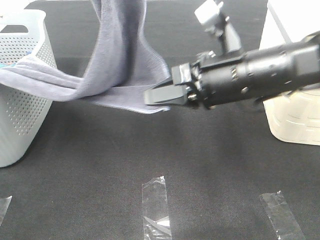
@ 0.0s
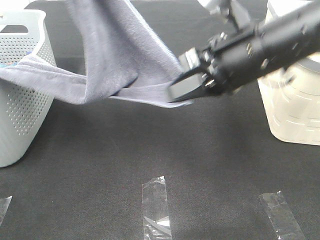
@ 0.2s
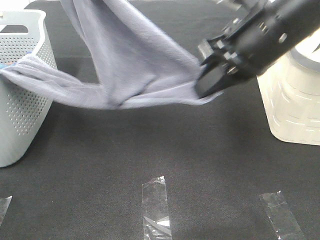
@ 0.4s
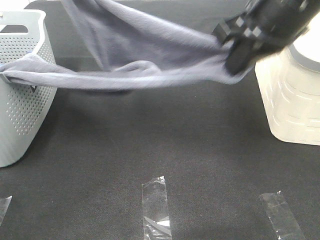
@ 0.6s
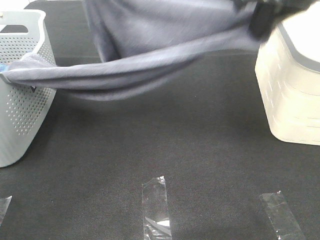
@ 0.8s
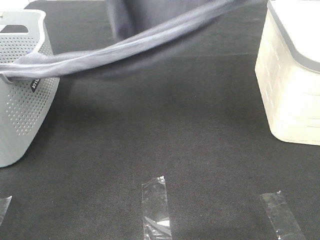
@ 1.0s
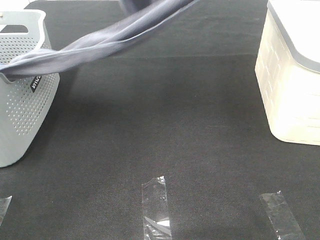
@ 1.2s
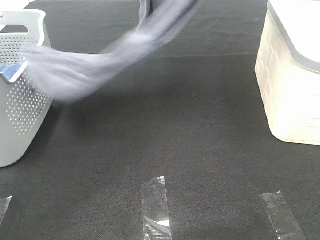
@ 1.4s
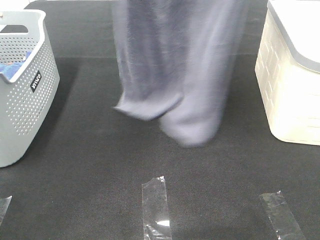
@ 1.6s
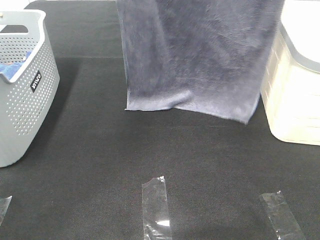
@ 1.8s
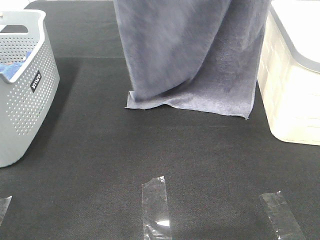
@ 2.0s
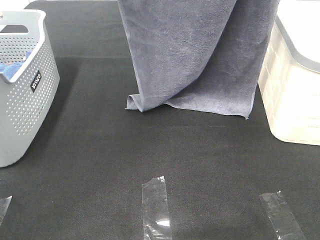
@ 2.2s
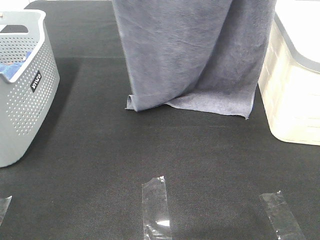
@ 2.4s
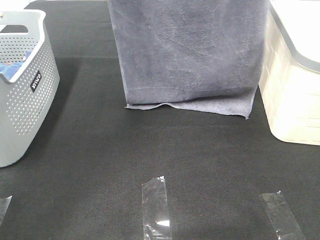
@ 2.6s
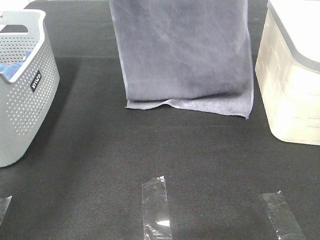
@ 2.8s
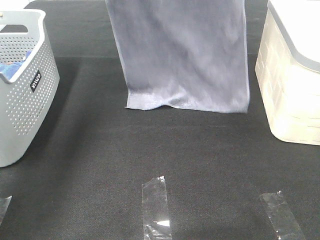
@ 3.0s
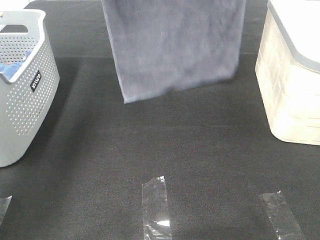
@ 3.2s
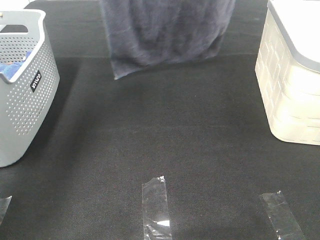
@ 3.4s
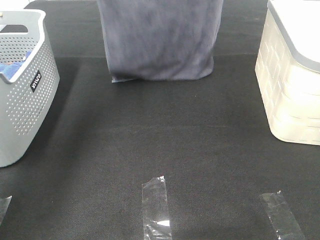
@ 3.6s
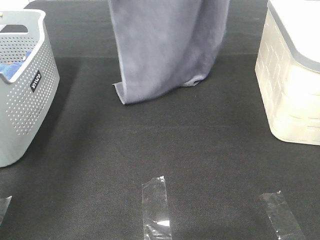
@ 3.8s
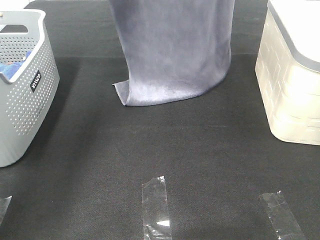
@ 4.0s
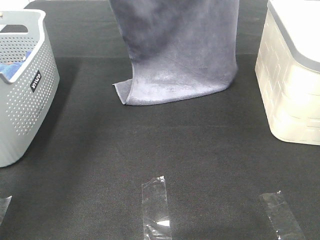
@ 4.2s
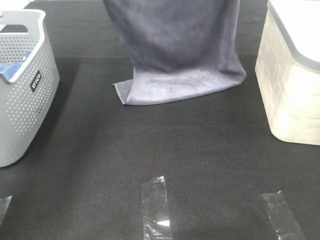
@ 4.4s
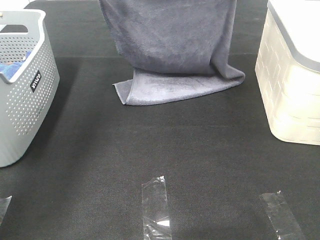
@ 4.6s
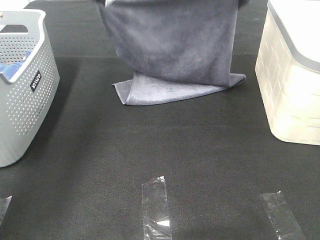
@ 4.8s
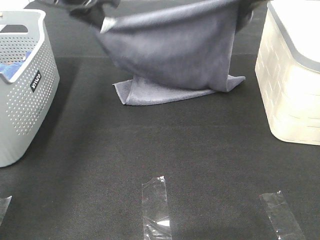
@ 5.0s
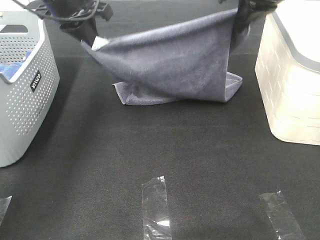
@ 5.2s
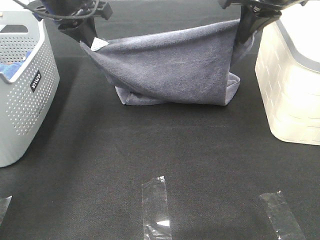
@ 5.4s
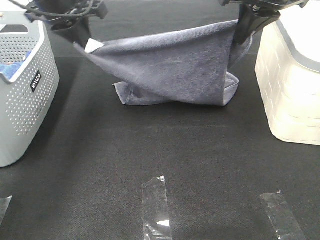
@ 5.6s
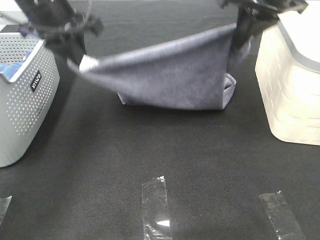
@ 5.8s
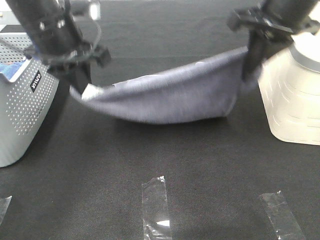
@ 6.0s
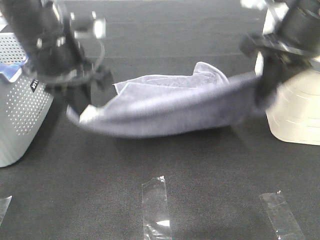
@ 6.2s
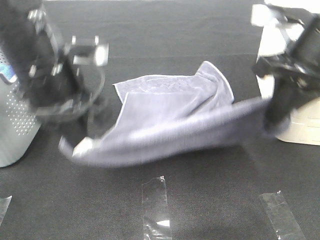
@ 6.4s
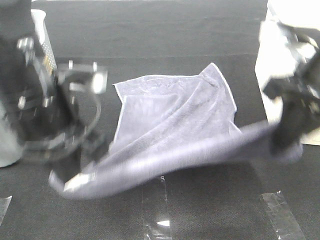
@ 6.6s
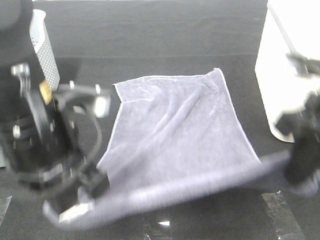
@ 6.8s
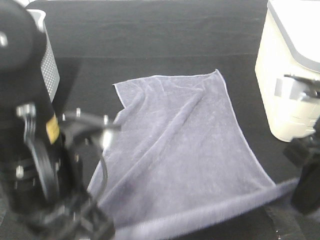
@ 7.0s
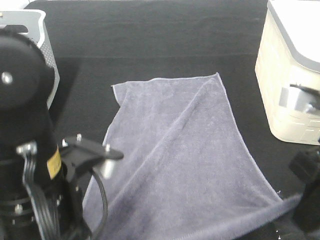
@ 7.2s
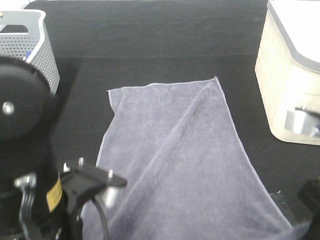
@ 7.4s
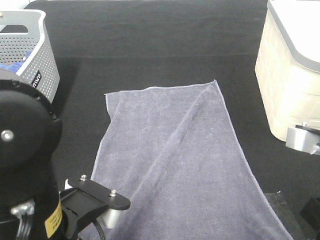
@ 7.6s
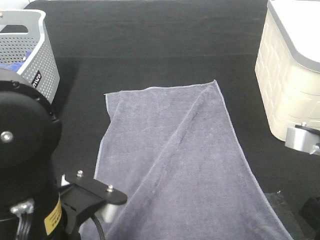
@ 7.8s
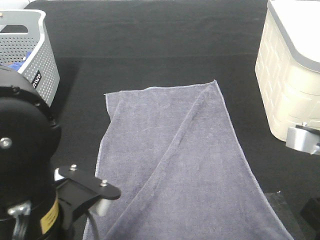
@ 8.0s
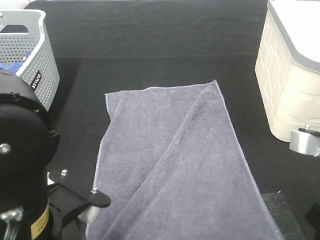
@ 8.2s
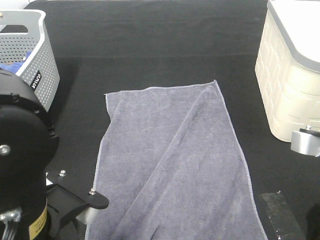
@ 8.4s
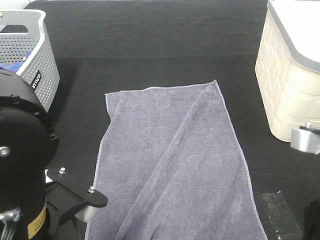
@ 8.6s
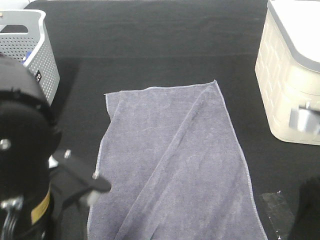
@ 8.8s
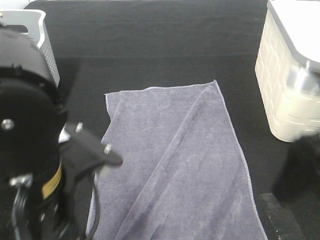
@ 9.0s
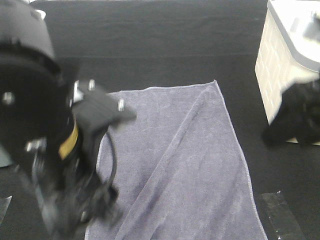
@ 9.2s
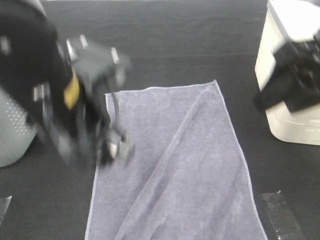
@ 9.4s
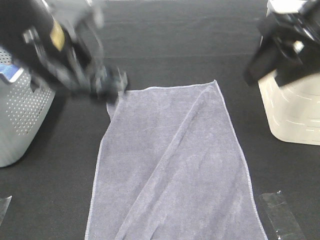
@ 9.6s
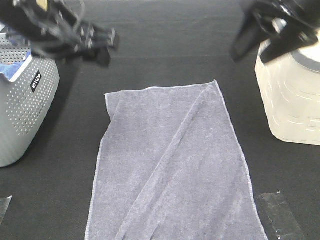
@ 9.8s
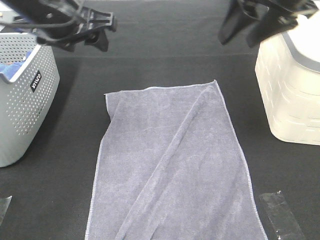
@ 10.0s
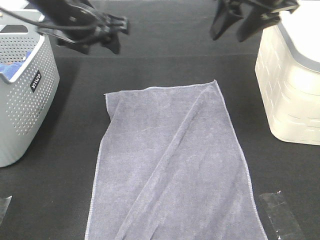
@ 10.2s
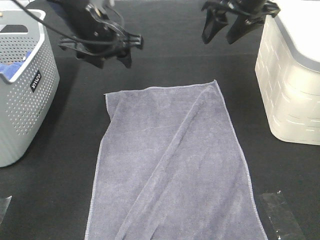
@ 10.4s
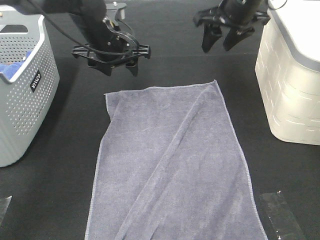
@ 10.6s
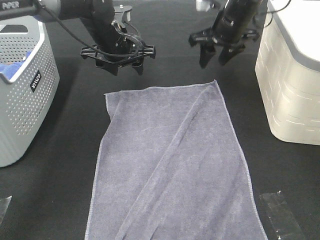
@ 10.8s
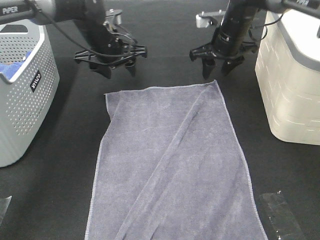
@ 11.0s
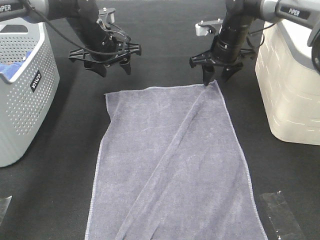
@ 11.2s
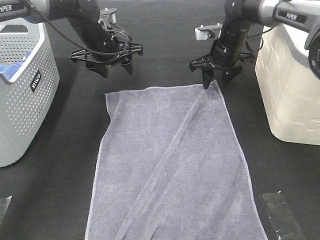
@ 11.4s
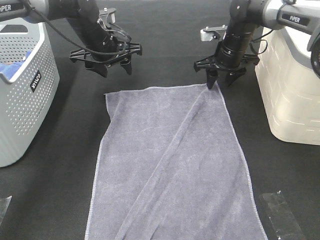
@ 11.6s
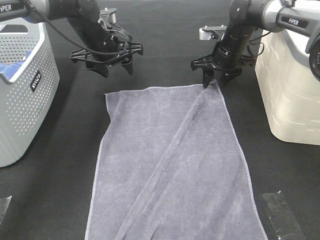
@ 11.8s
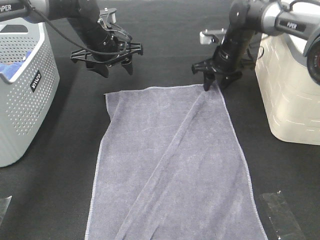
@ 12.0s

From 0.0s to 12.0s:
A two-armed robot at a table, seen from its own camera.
Task of the whole recording: Remove the towel and place it.
Step, from 0.0s to 3.6s: Left hand: spread the grey towel flat on the table.
Step, from 0.0s to 3.6s: Right hand: spread the grey towel flat on the table.
From 0.0s to 1.6s: The right gripper is displaced upward by some 30 cm. Meanwhile the left gripper travels forward by about 10 cm, and moves some 5 cm downward and comes back.
From 1.6s to 3.0s: The right gripper travels forward and downward by roughly 10 cm. Meanwhile the left gripper travels forward, downward and to the left by some 10 cm.
From 3.0s to 4.4s: Both grippers travel together downward, approximately 10 cm.
From 4.4s to 6.0s: The right gripper shifts approximately 10 cm backward and downward; the left gripper heads backward, covering approximately 15 cm.
From 6.0s to 7.6s: The right gripper moves backward and downward, some 20 cm. The left gripper shifts roughly 25 cm backward.
From 7.6s to 9.0s: The right gripper ends up about 5 cm from where it was, and opens. Meanwhile the left gripper opens.
From 9.0s to 10.4s: The two grippers go approximately 30 cm forward.
From 10.4s to 12.0s: The right gripper shifts approximately 20 cm downward and forward. Meanwhile the left gripper is displaced forward by approximately 5 cm.

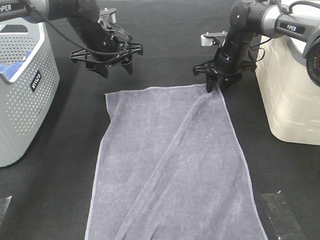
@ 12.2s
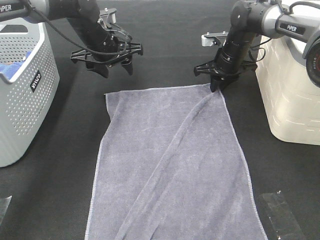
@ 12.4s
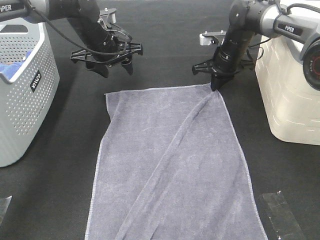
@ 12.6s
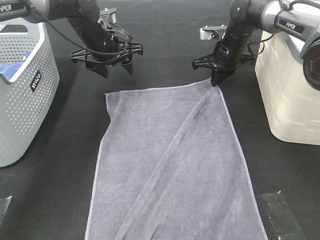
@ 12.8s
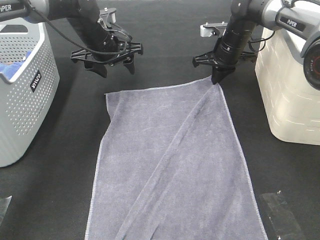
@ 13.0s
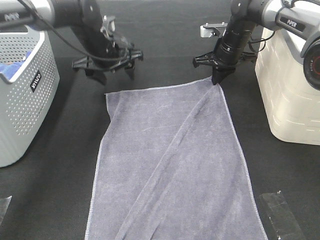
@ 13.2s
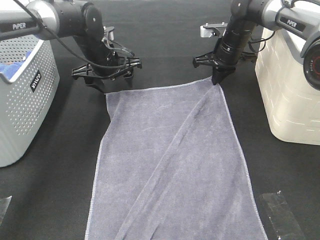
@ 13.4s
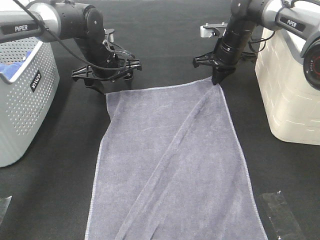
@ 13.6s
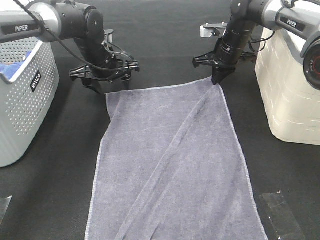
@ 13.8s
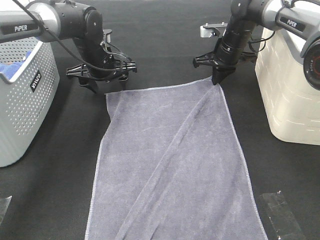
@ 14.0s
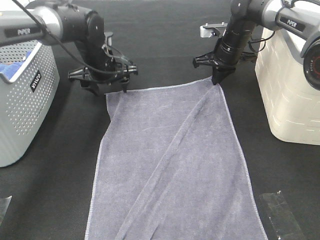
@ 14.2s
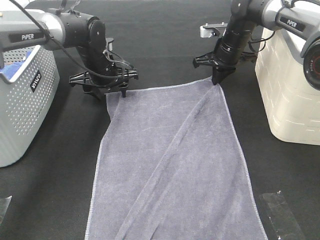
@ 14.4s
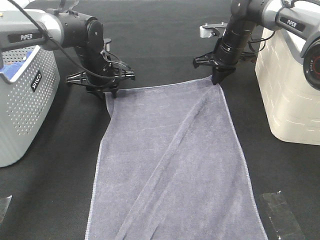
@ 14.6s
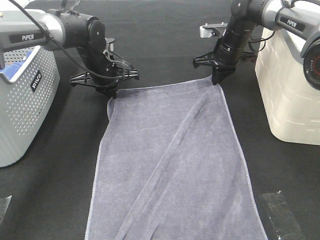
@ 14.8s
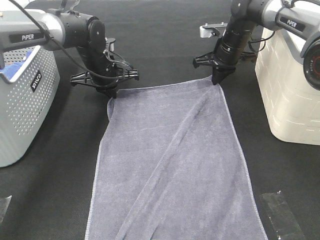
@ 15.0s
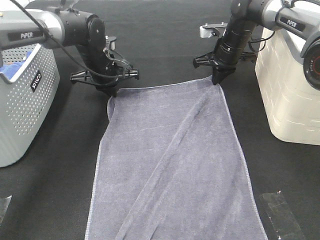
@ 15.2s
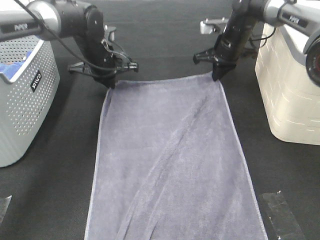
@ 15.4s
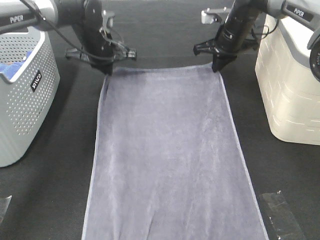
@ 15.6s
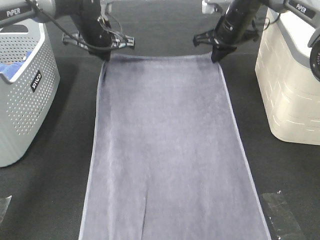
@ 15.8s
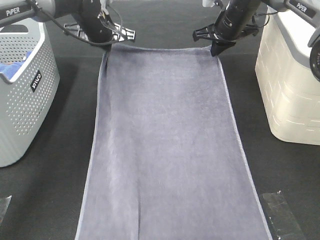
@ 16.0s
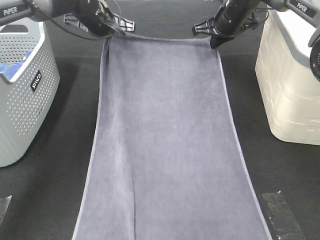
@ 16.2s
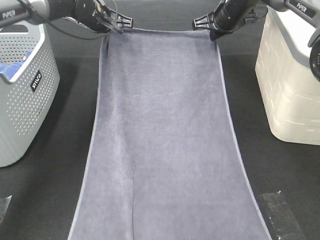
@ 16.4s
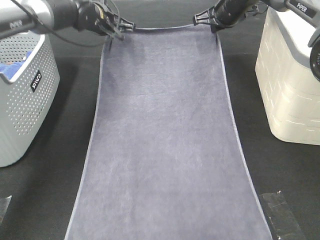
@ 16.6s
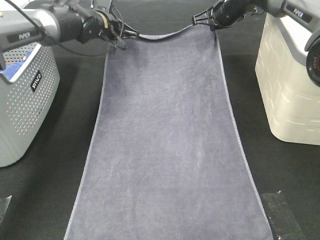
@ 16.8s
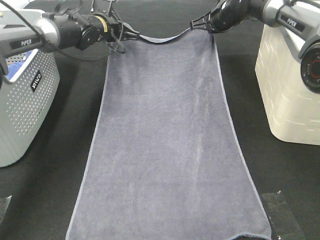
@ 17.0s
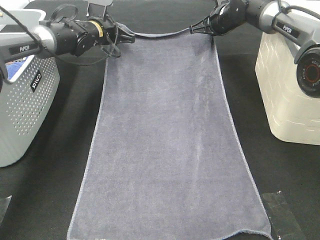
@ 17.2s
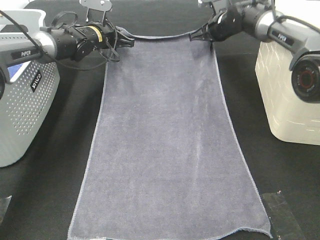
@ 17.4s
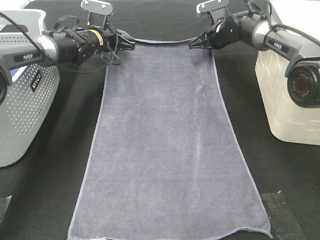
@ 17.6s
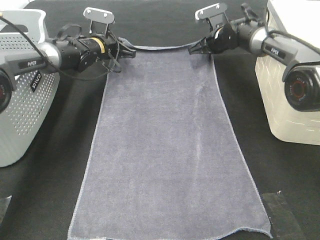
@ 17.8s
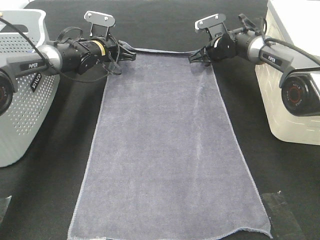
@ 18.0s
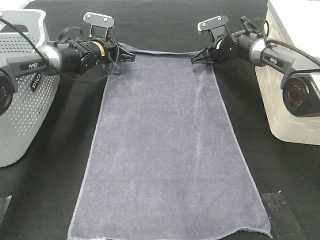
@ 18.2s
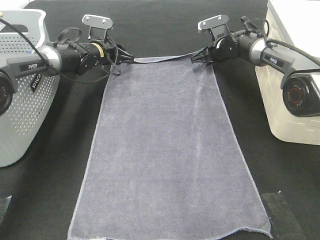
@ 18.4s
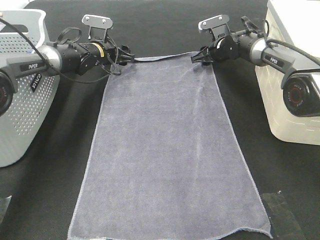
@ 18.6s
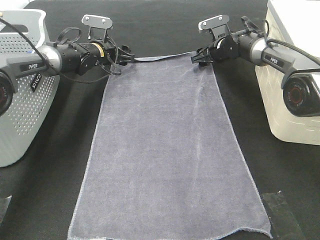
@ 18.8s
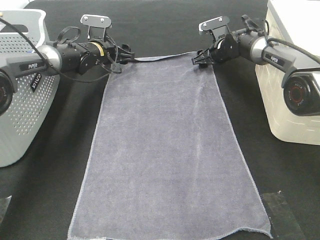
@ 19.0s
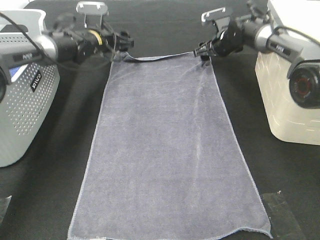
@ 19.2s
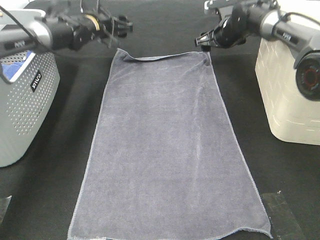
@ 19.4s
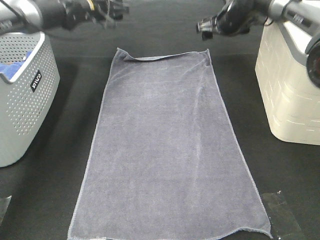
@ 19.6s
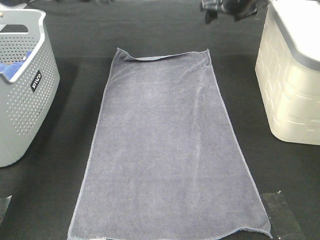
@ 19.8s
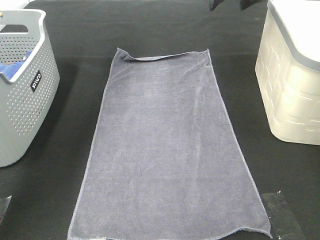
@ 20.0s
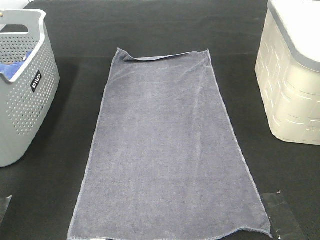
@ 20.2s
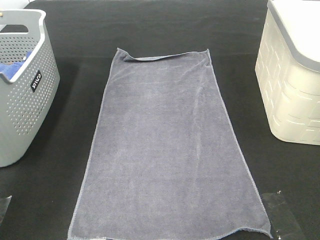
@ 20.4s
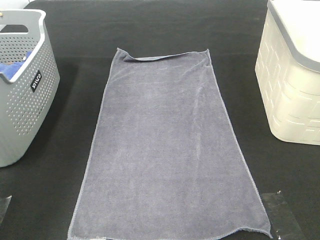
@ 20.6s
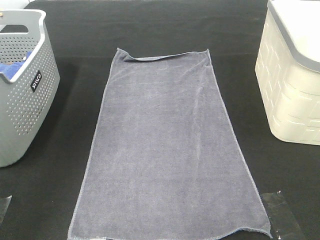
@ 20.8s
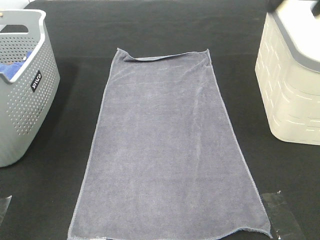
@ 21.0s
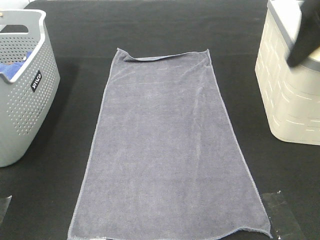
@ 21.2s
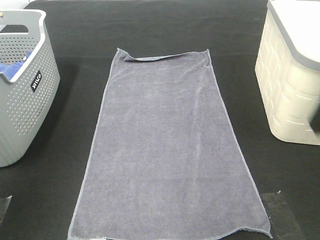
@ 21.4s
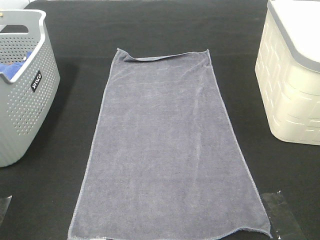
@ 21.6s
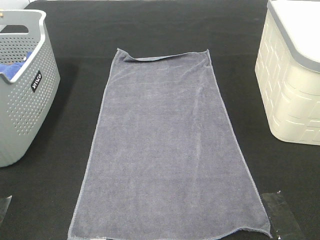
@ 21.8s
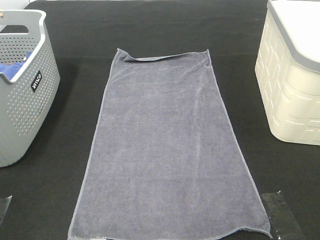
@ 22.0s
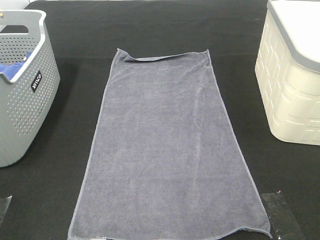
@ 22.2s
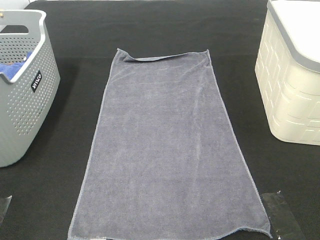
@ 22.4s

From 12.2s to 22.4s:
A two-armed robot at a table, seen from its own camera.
Task of the whole recording: Remove the towel and place it.
From 12.2s to 13.6s: The right gripper closes.
From 13.6s to 15.2s: The left gripper closes its fingers.
From 15.2s to 16.6s: The right gripper moves upward, some 5 cm, while the left gripper shifts approximately 10 cm upward and forward.
From 16.6s to 18.0s: The two grippers go about 10 cm downward.
From 18.0s to 19.4s: The grippers both shift upward by about 5 cm. The left gripper opens, while the right gripper opens its fingers.
From 19.4s to 21.0s: Both grippers move backward and upward, some 40 cm.
From 21.0s to 22.4s: The left gripper shifts about 25 cm backward and downward. Meanwhile the right gripper heads backward, covering some 25 cm.
